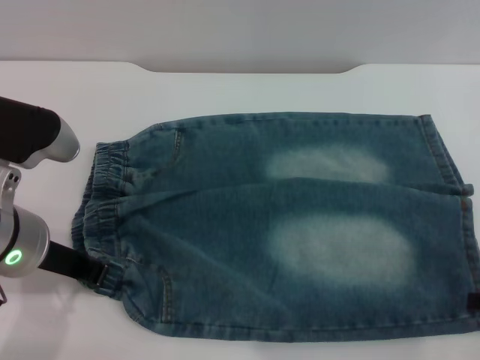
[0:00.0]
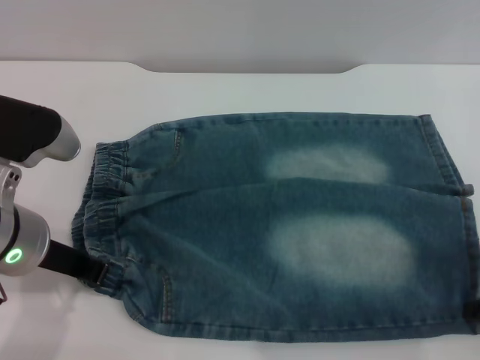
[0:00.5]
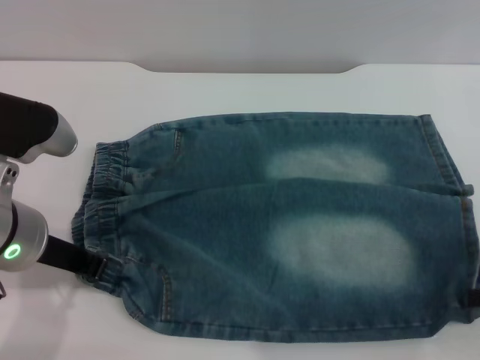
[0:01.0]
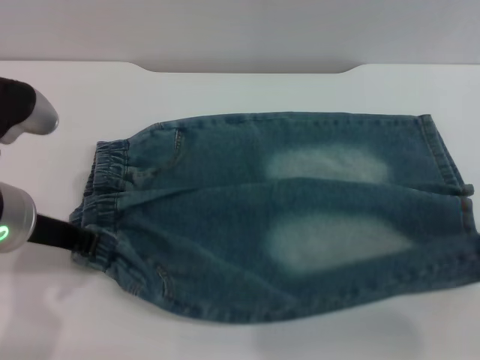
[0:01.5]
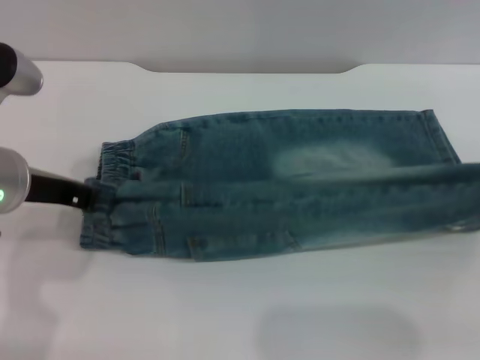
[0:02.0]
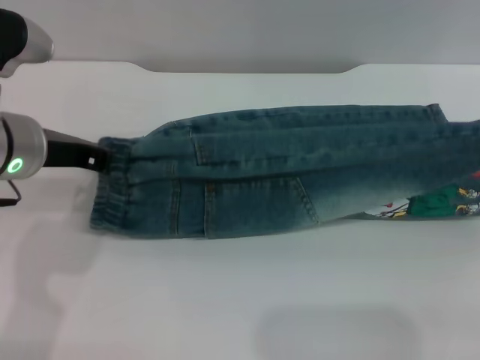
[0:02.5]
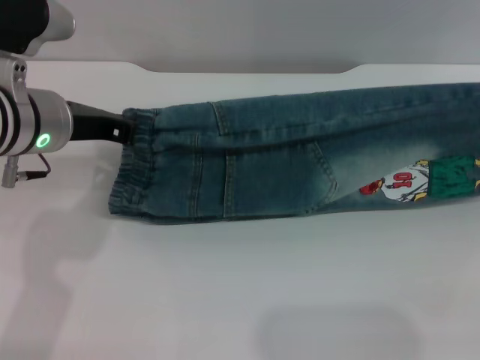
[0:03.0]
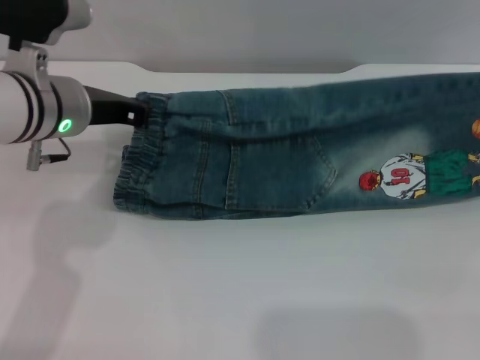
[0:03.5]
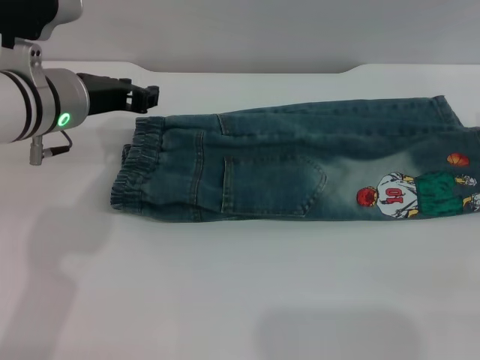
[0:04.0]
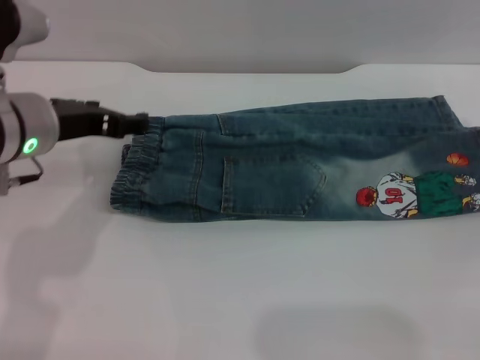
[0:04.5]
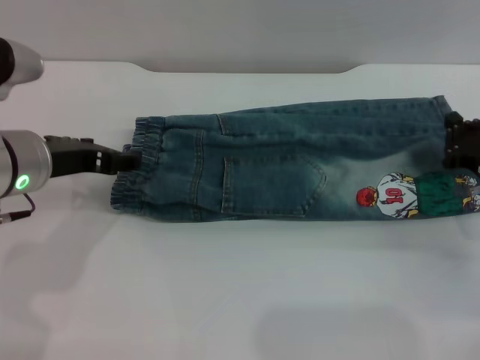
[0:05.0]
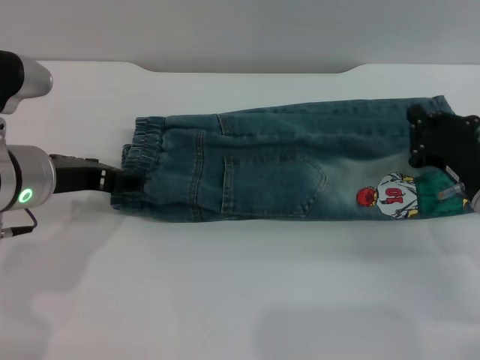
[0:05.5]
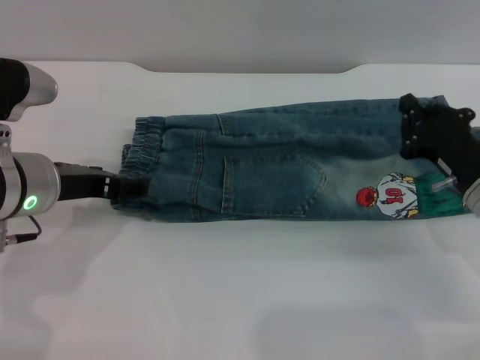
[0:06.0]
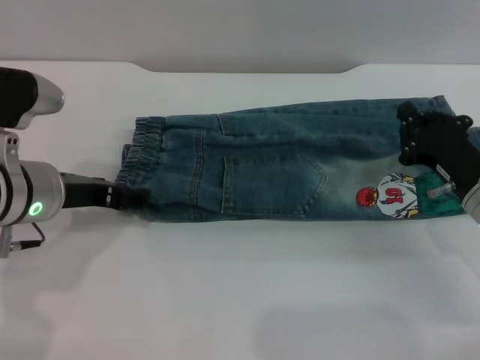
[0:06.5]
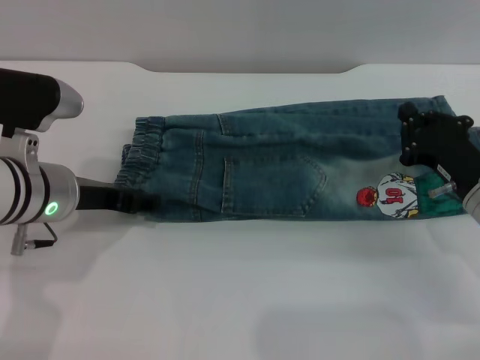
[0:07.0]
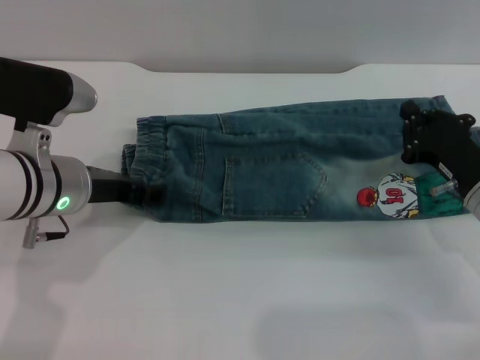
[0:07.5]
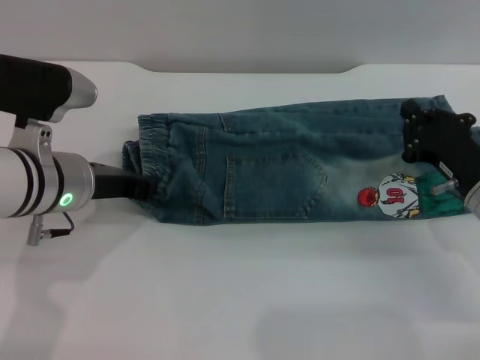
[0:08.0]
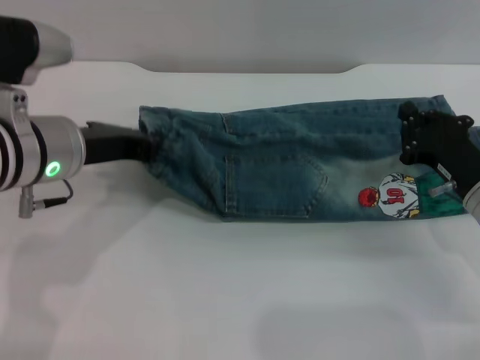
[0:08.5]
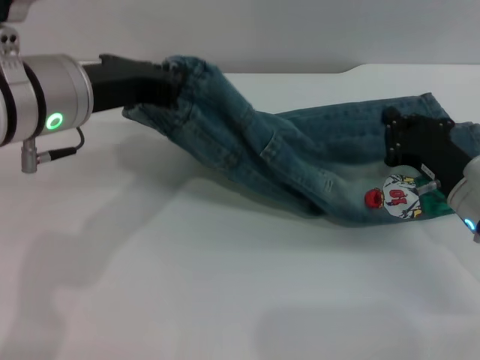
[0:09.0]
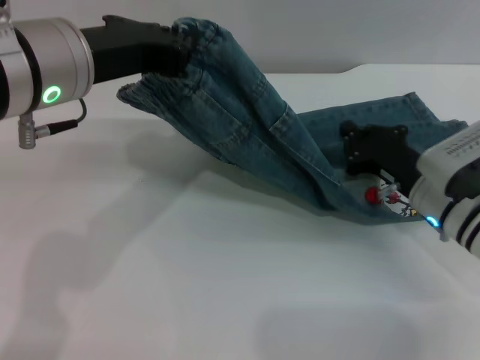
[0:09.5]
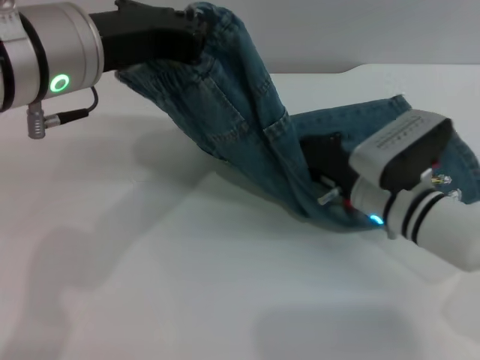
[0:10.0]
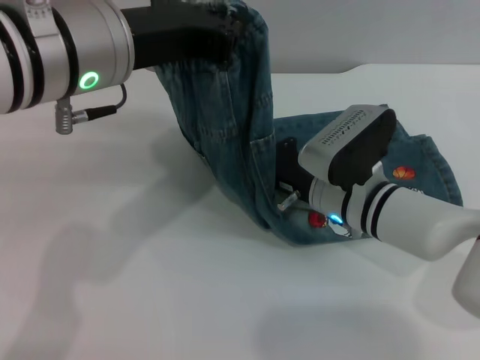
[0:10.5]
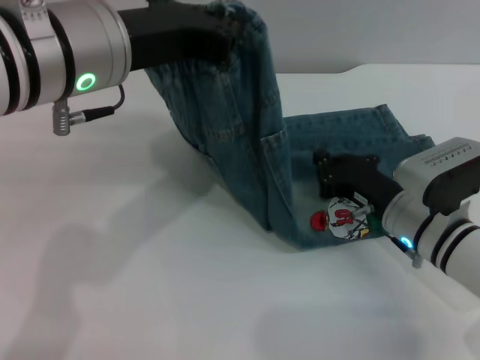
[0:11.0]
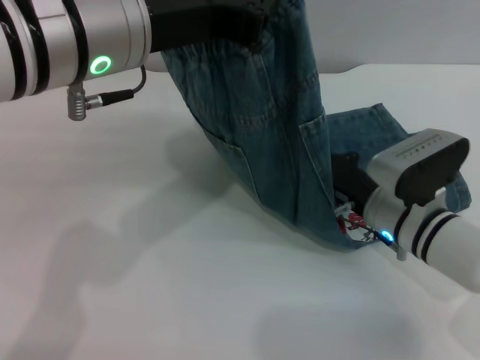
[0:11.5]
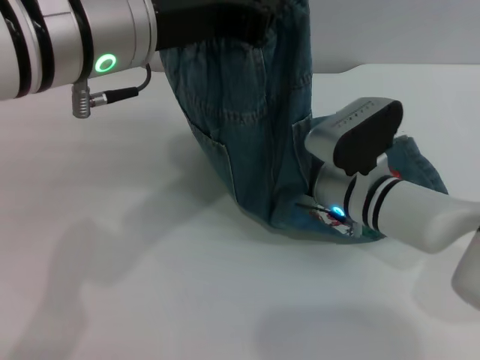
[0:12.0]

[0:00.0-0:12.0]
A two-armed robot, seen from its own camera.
Step, 0:00.0 to 0:04.5: Fold the bottom of the pants upward with both grippers.
0:00.0 to 0:02.0: The right gripper moves upward, roughly 10 cm, and closes up.
0:02.0 to 0:04.0: The two grippers go roughly 10 cm forward. The right gripper opens.
0:04.0 to 0:06.0: The left gripper moves backward, approximately 5 cm, and opens. Meanwhile the right gripper shifts about 15 cm to the left and downward, and closes up.
0:06.0 to 0:08.0: The left gripper closes its fingers.
0:08.0 to 0:10.0: The right gripper heads to the left, covering about 10 cm. The left gripper moves upward, approximately 15 cm, and closes.
0:10.0 to 0:12.0: The right gripper goes left and right, some 5 cm each way, reversing 2 times.

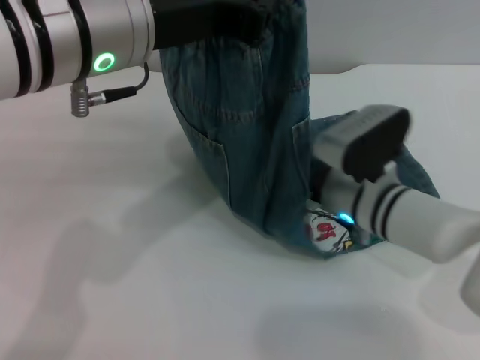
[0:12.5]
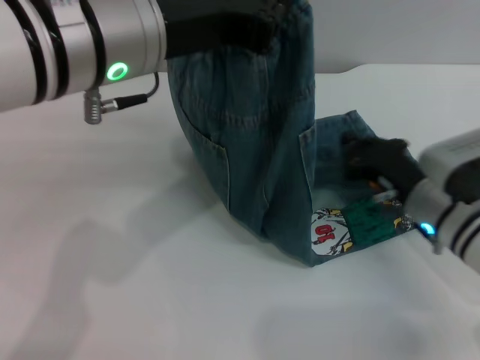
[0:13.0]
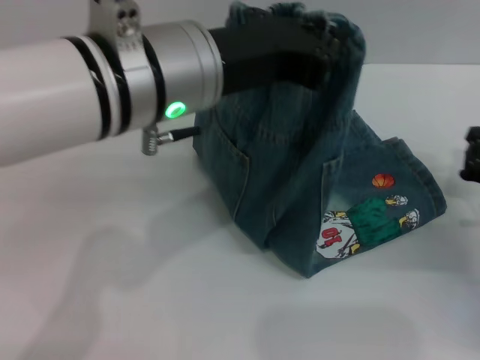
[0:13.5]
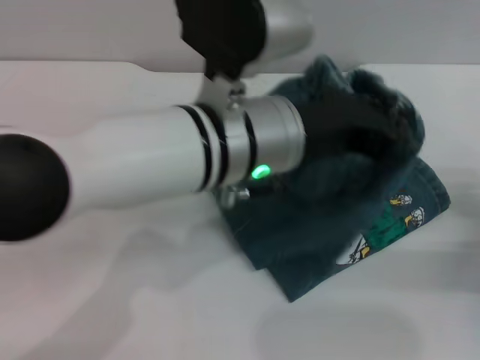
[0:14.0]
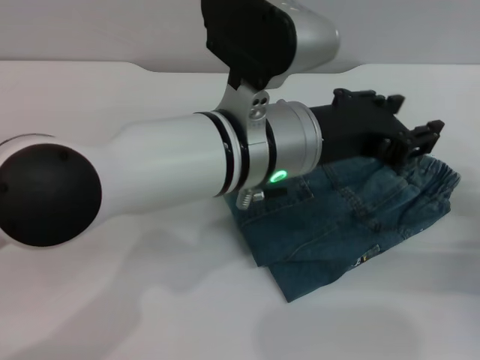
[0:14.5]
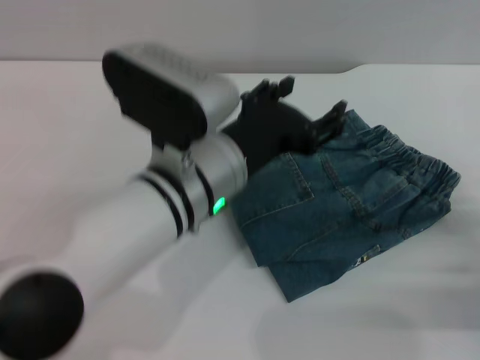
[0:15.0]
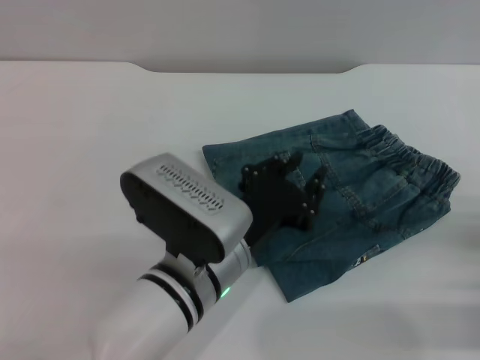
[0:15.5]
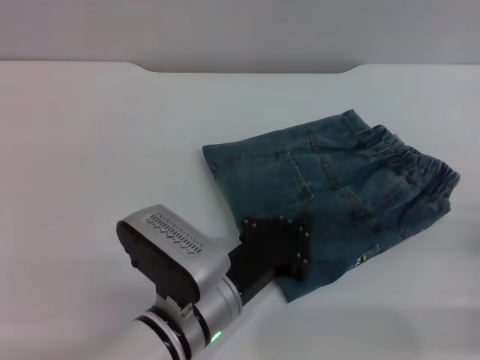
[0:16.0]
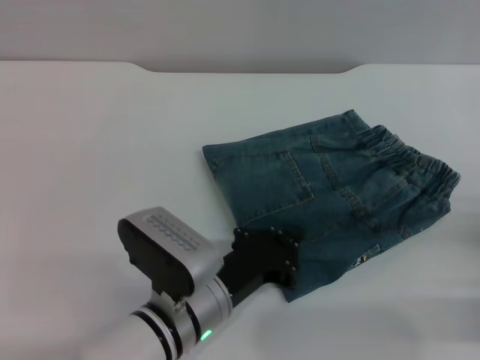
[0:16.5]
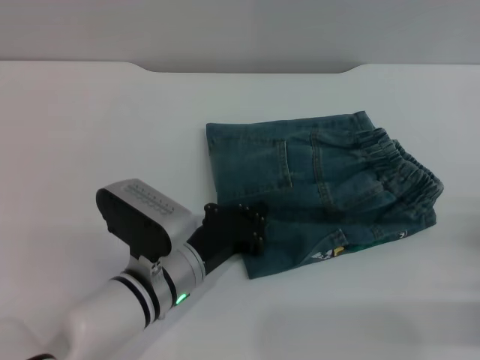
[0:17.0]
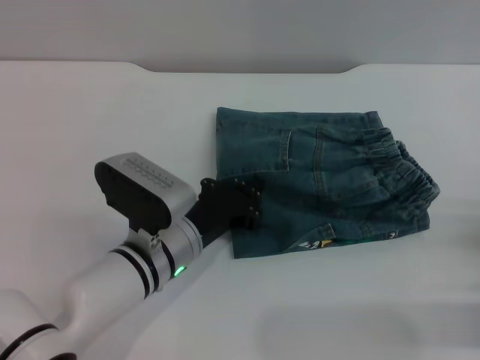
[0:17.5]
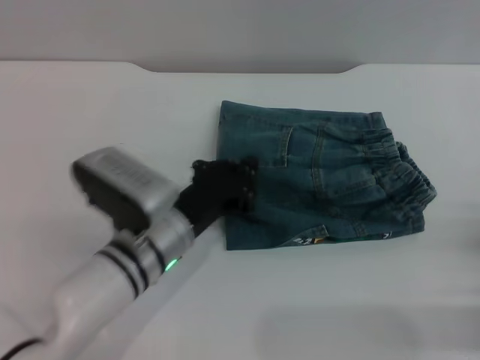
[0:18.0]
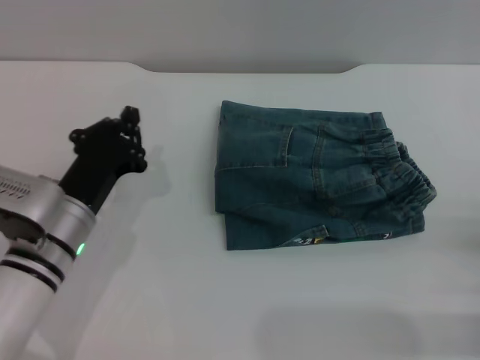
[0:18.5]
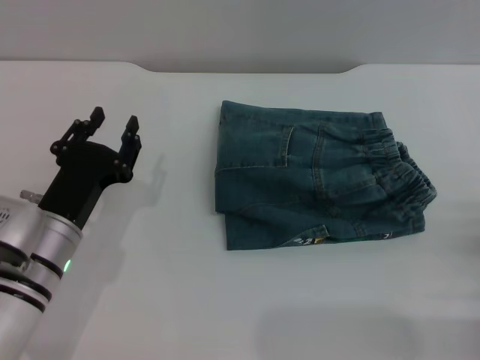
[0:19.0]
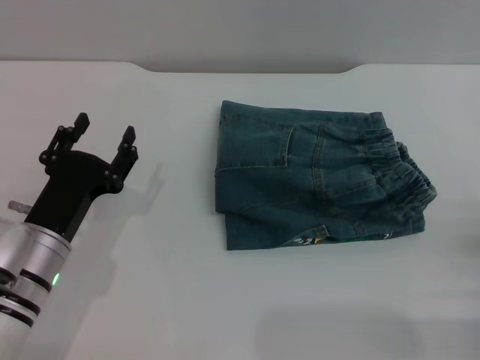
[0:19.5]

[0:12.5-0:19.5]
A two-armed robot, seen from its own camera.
Step, 0:12.5 to 0:14.5: Fold the pants from left to right with the left gripper.
Step, 0:15.0 to 0:18.0: Place the folded trousers onto the center area with the left grippers.
0:12.5 to 0:14.5: The left gripper goes about 15 cm to the right and downward, and opens its fingers. Meanwhile the right gripper is displaced to the right and backward by about 25 cm.
0:14.5 to 0:16.0: The right gripper goes some 5 cm backward. The left gripper is displaced downward and backward by roughly 15 cm, and closes up.
0:16.0 to 0:17.5: The left gripper moves forward, about 5 cm.
0:17.5 to 0:19.5: The right gripper opens, while the left gripper shifts some 10 cm to the left, and opens its fingers.

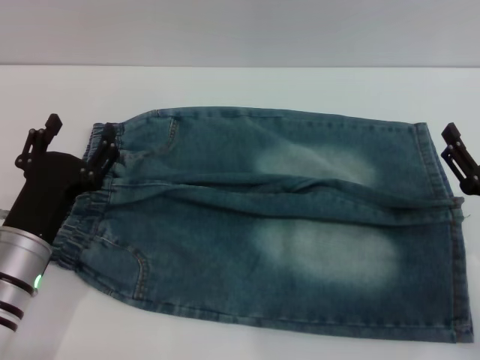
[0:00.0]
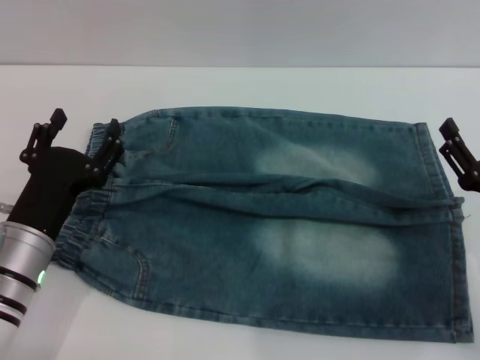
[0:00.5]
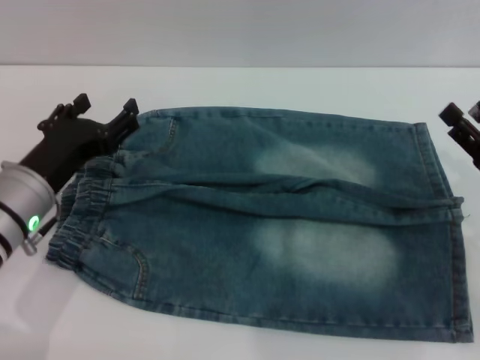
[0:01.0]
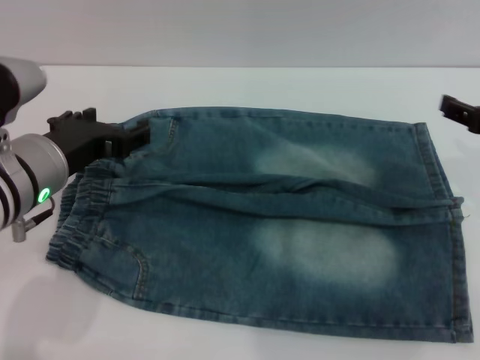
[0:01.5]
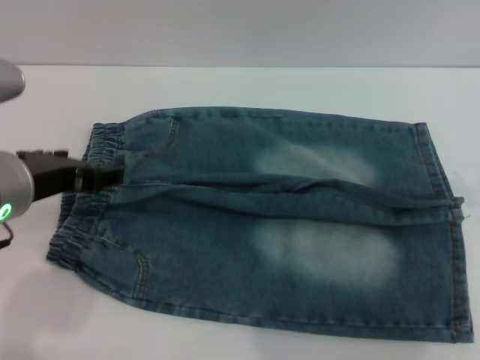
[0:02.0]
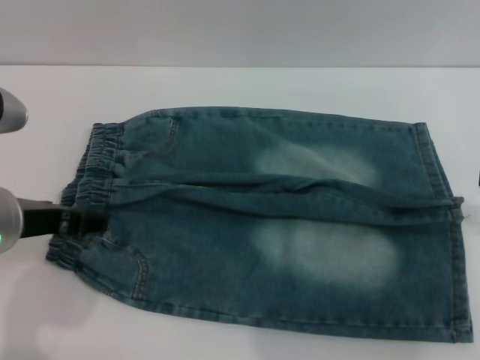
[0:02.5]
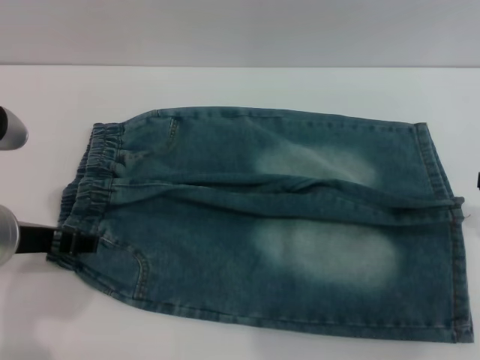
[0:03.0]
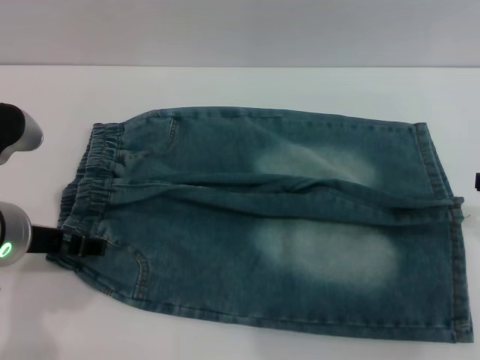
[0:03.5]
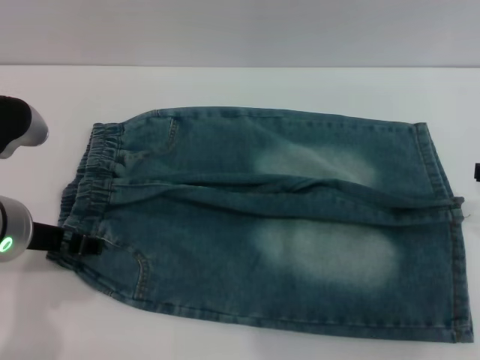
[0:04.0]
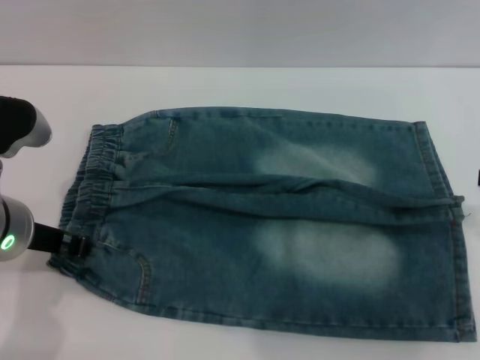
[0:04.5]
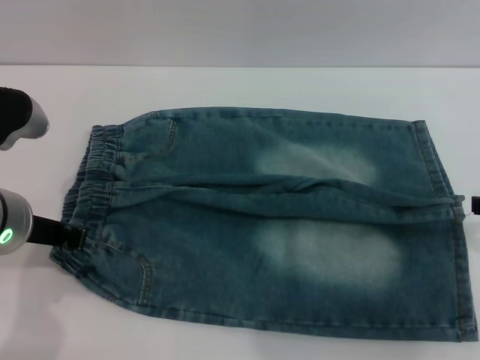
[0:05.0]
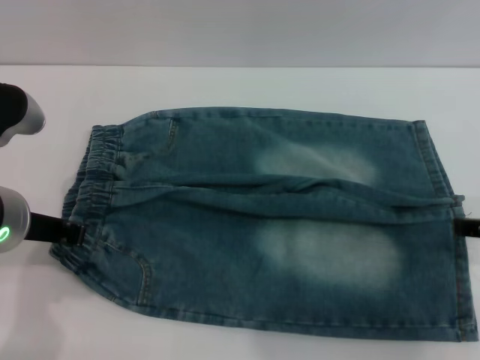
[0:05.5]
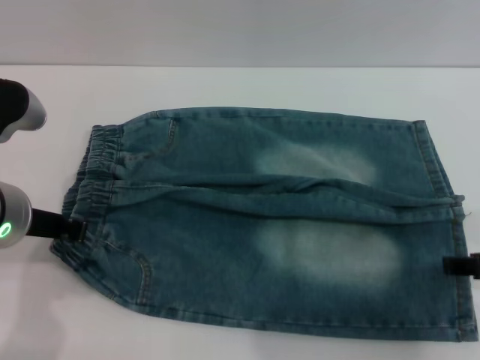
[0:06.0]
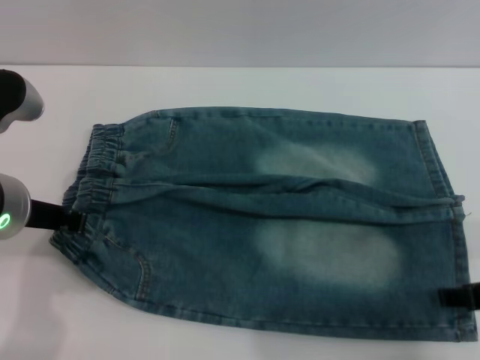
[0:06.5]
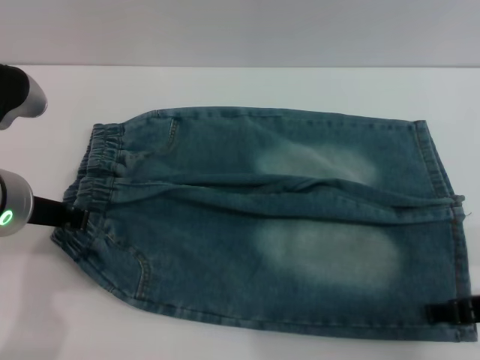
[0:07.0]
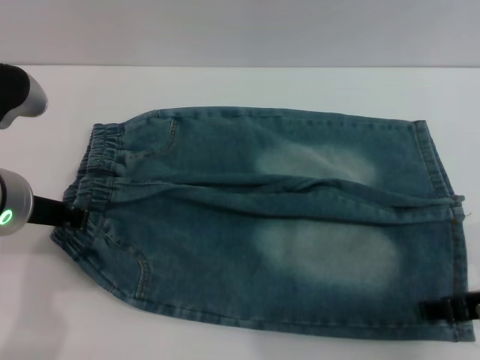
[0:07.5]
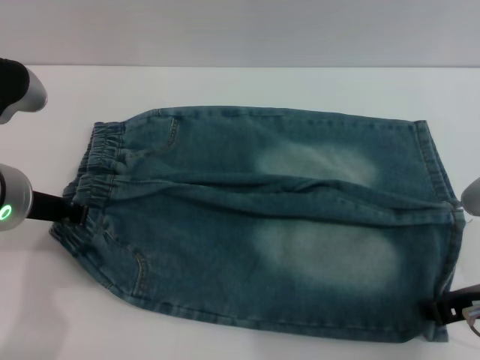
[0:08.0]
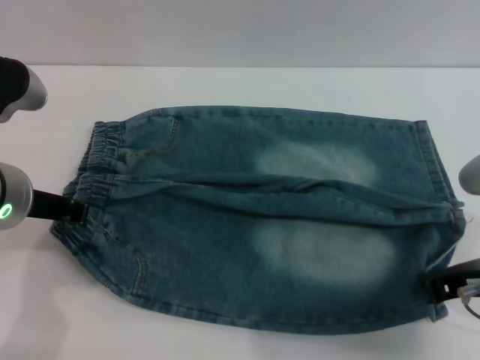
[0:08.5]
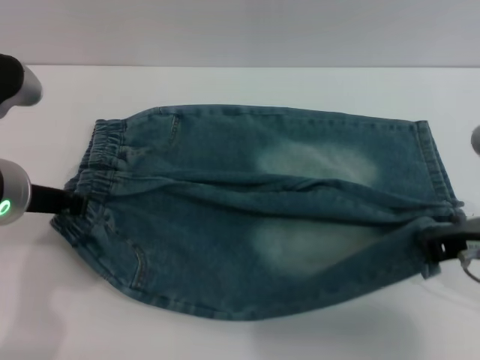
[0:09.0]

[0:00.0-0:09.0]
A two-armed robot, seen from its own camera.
0:00.0 to 0:02.0: The grippers both shift upward by some 15 cm.
0:02.0 to 0:04.5: The left gripper closes up.
0:04.5 to 0:07.0: The left gripper closes; the right gripper changes place by some 10 cm.
0:07.0 to 0:09.0: The right gripper moves some 5 cm, and closes.
